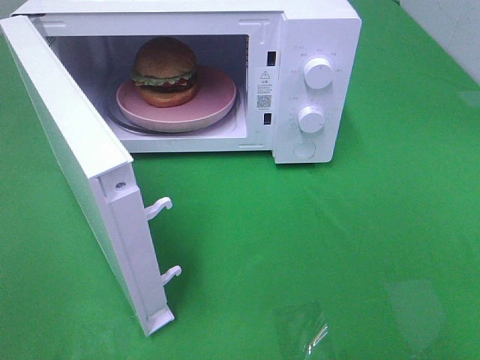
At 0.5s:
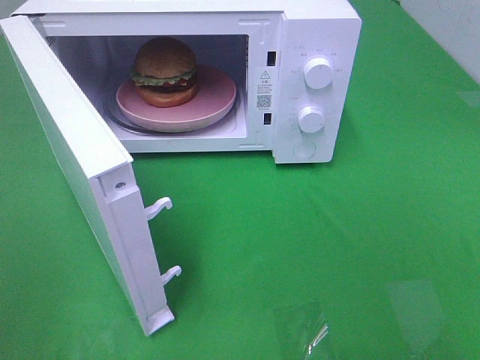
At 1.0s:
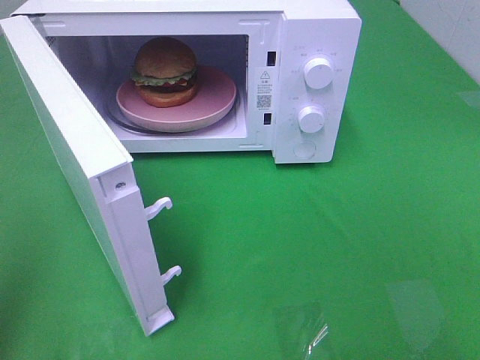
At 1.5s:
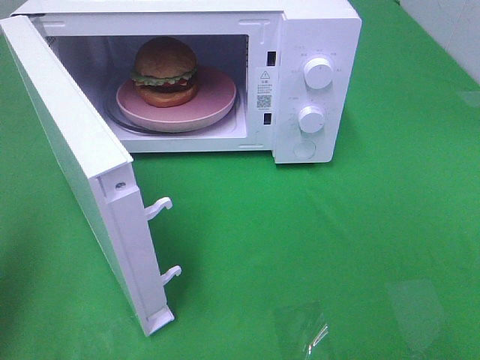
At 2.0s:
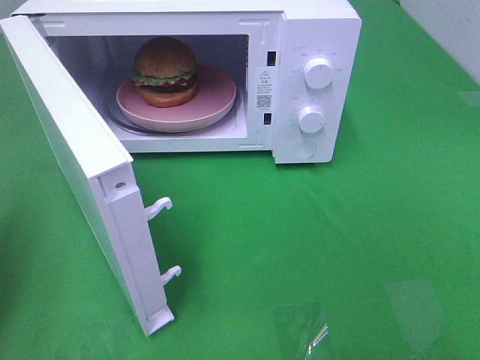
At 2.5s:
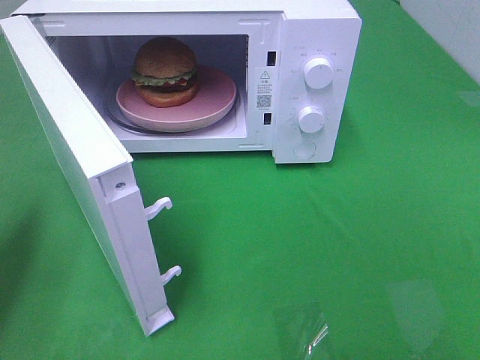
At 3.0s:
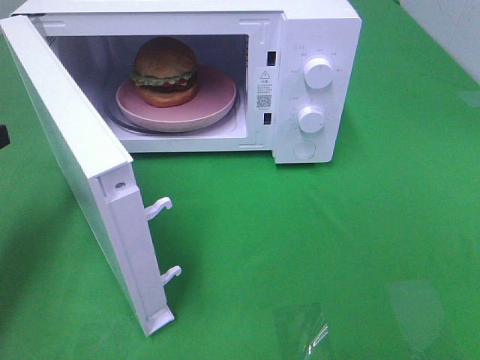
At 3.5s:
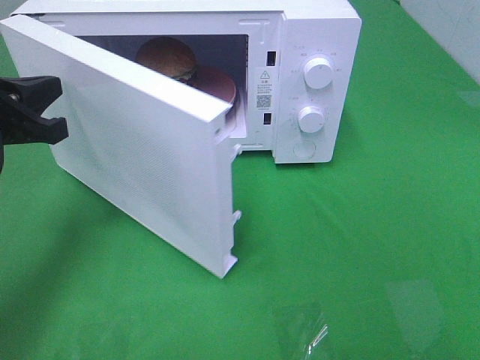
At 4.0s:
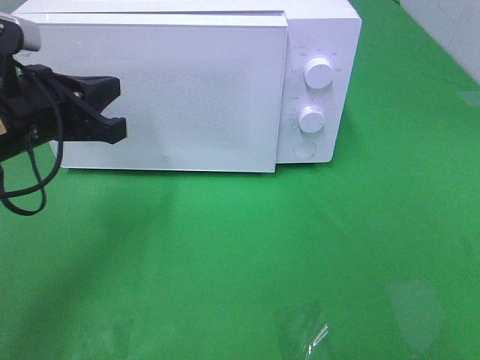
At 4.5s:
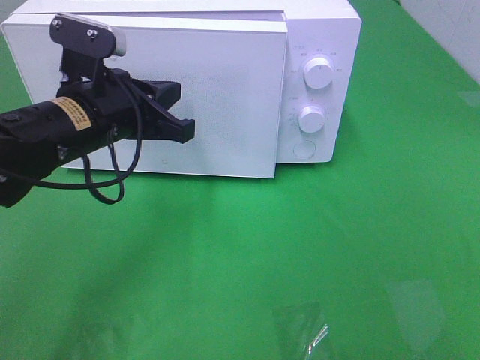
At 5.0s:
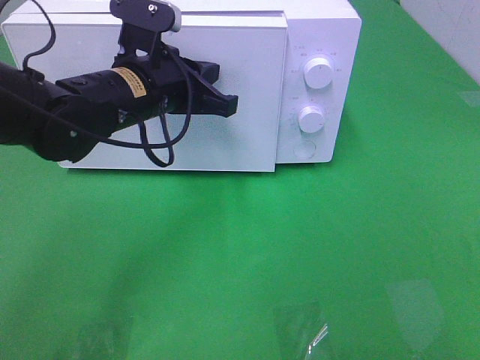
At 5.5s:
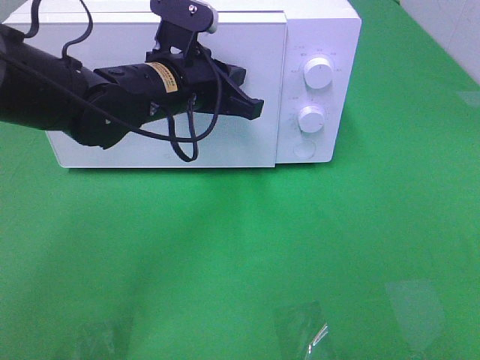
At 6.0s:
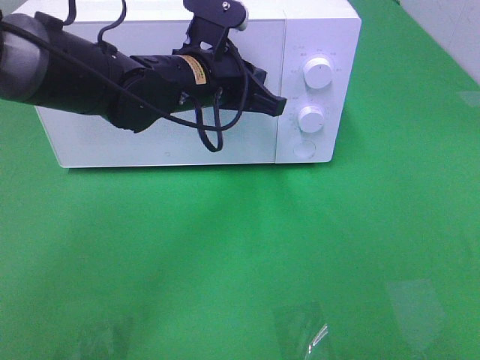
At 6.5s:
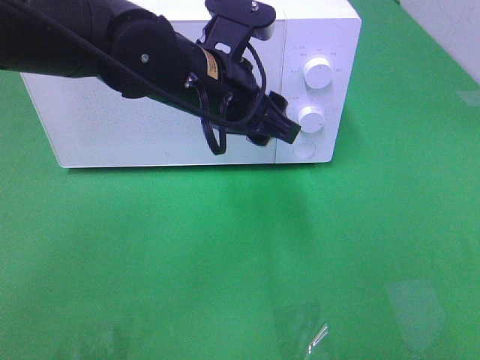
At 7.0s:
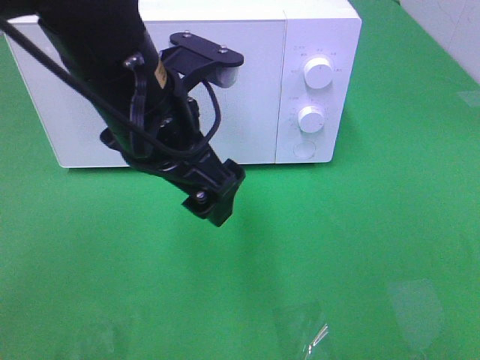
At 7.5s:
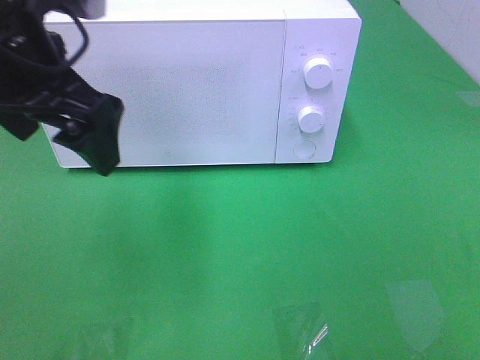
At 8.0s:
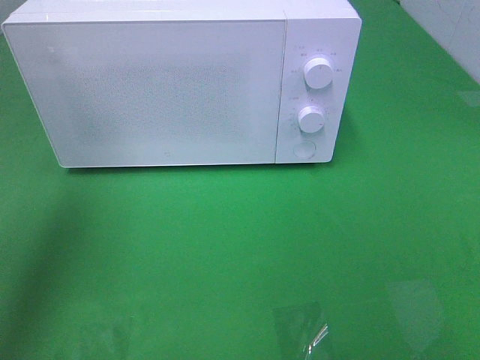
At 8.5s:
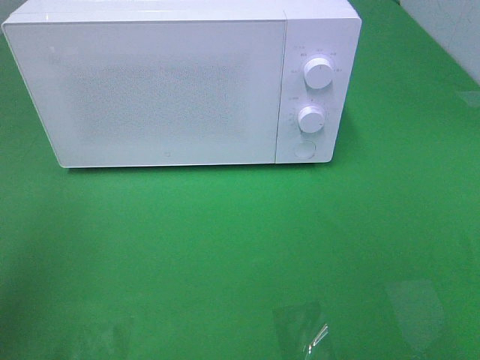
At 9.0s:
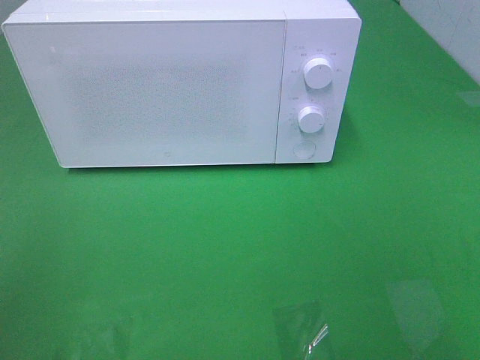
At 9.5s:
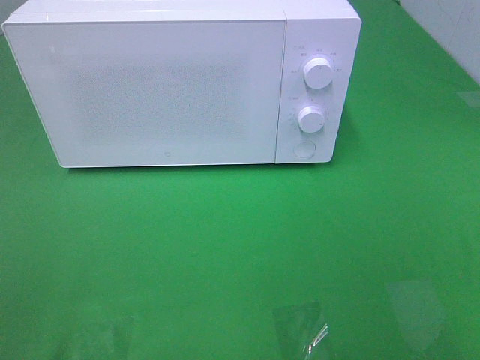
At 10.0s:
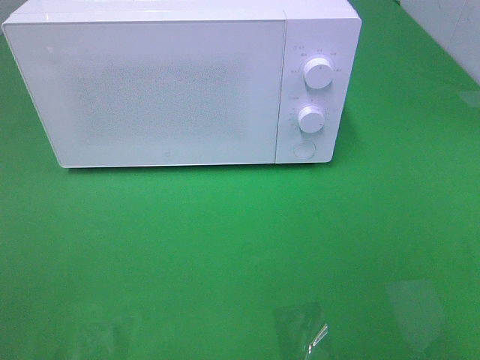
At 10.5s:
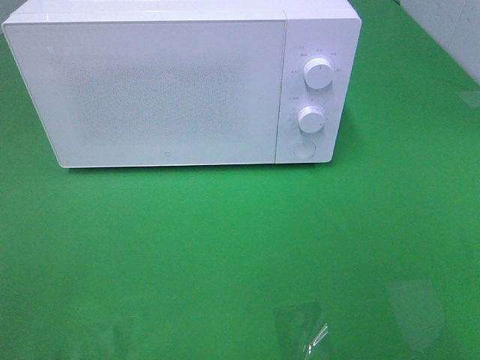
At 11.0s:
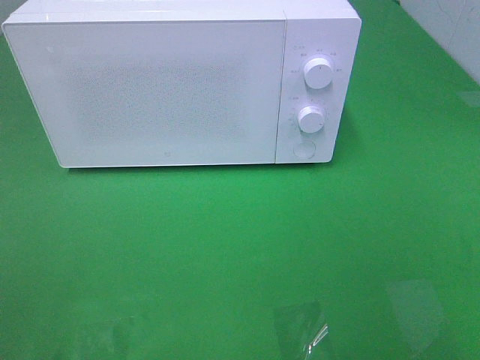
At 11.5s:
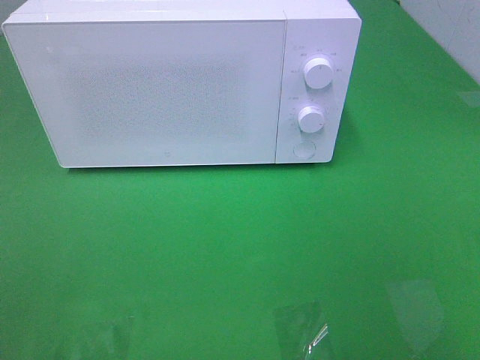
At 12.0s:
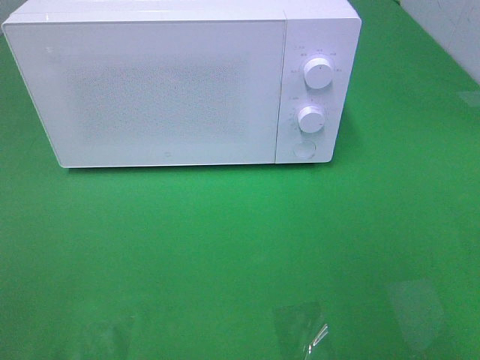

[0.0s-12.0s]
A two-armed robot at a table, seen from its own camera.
Task of the whole recording: Heat the burger.
Step, 0.0s to 6.0s: Left hand: close the microwave door.
0.0s to 2.0s: The left gripper is displaced forward by some 20 cm, and closes.
2.0s to 4.0s: The left gripper shifts approximately 15 cm to the right and forward.
4.0s to 6.0s: The left gripper moves to the right and forward, approximately 20 cm.
6.0s to 8.0s: The left gripper moves to the left, upward and backward, approximately 30 cm, and opens.
8.0s to 10.0s: The left gripper heads backward, covering roughly 25 cm.

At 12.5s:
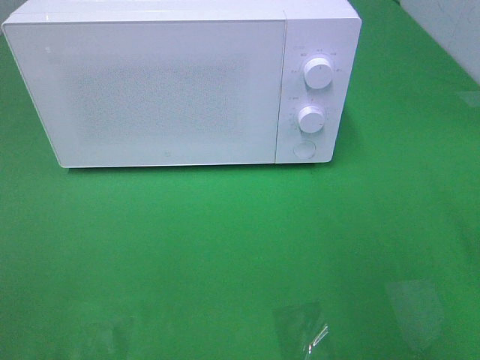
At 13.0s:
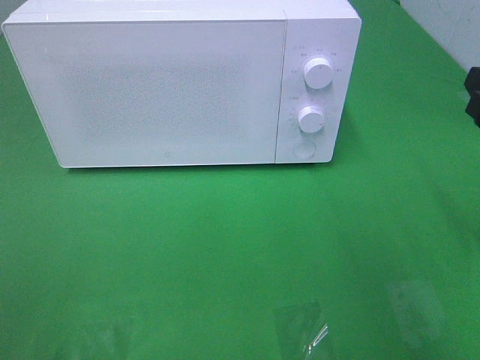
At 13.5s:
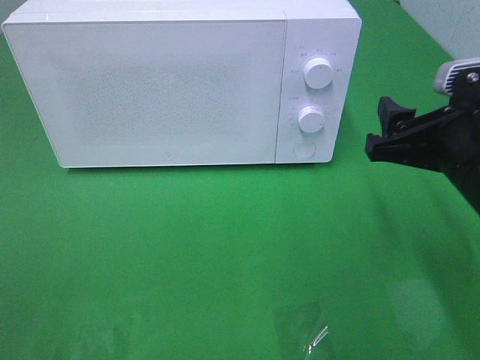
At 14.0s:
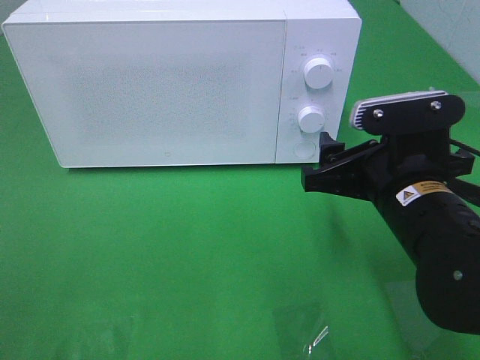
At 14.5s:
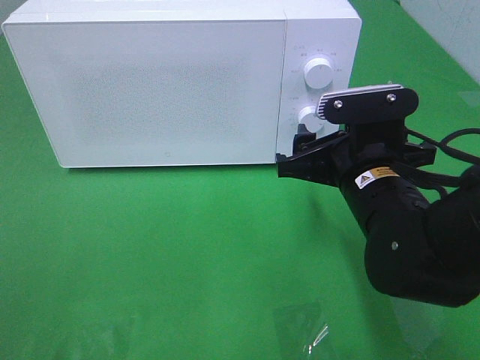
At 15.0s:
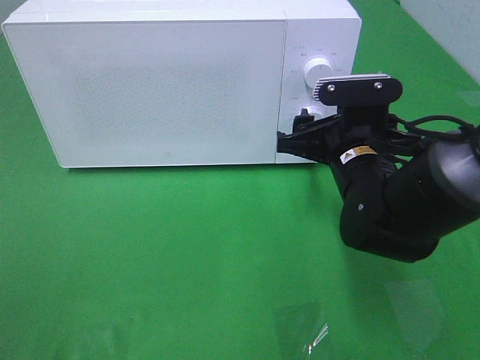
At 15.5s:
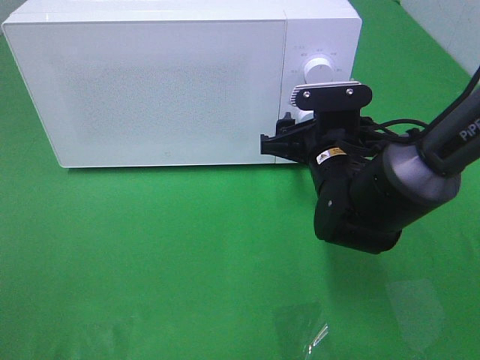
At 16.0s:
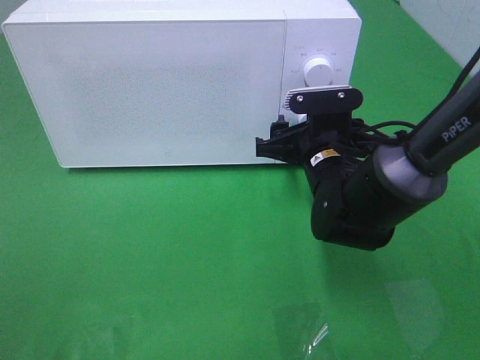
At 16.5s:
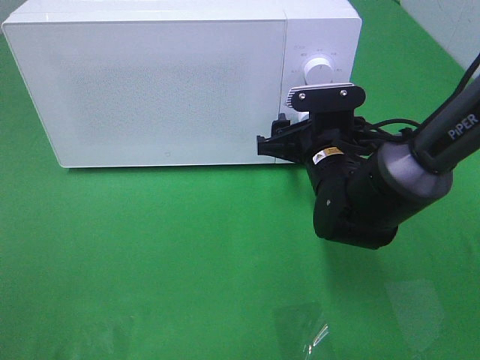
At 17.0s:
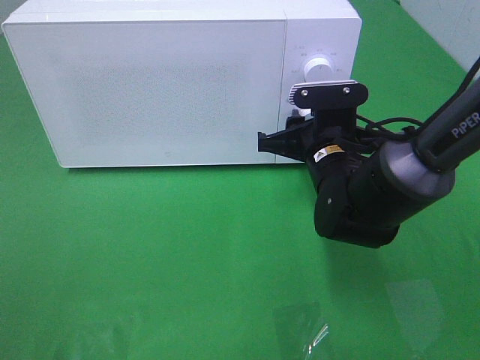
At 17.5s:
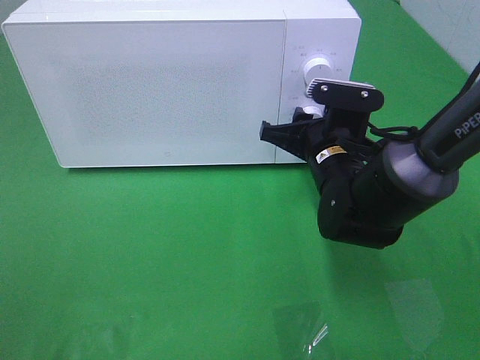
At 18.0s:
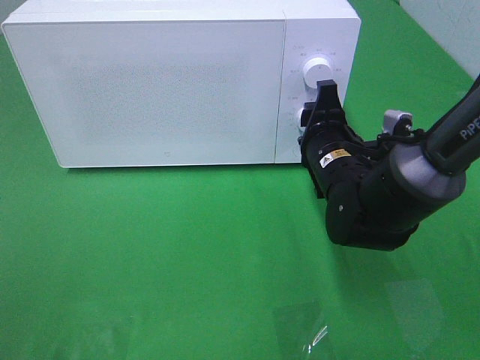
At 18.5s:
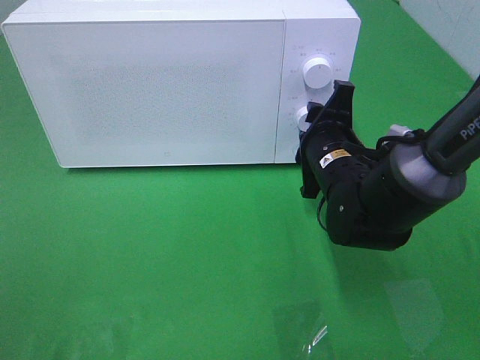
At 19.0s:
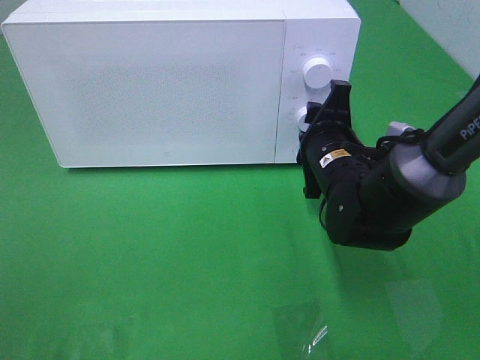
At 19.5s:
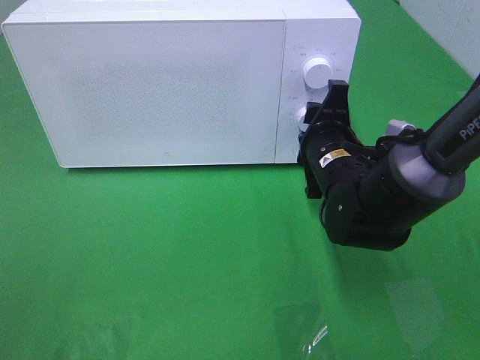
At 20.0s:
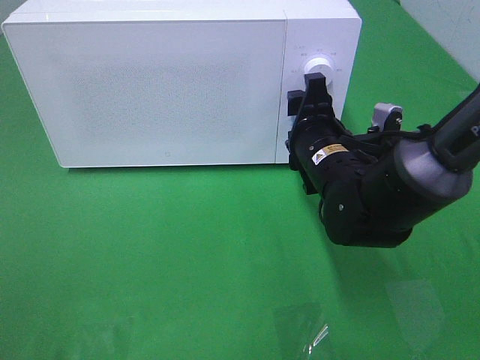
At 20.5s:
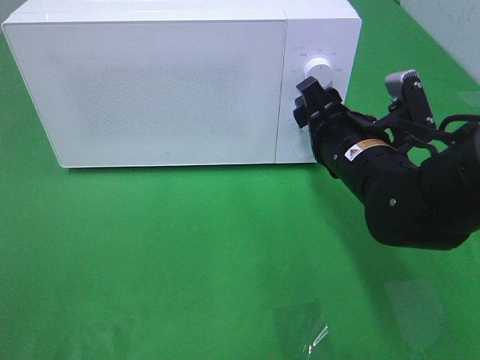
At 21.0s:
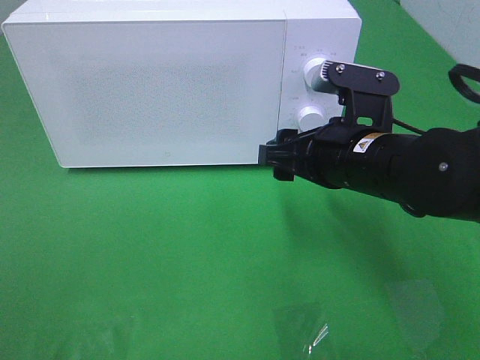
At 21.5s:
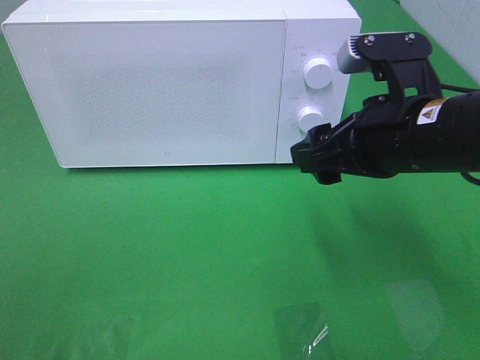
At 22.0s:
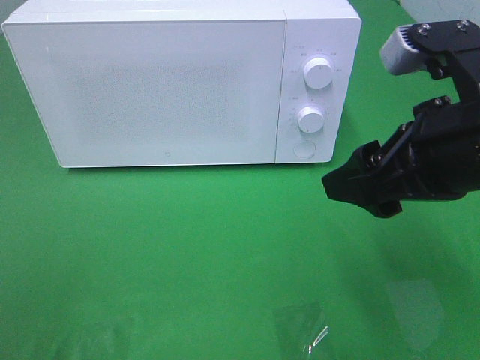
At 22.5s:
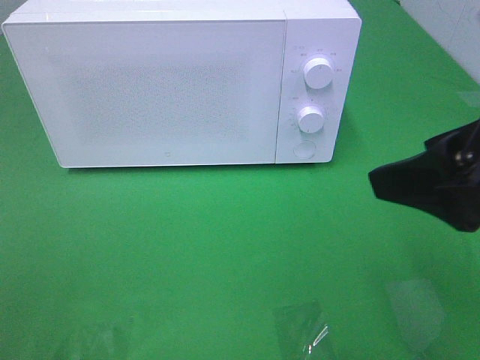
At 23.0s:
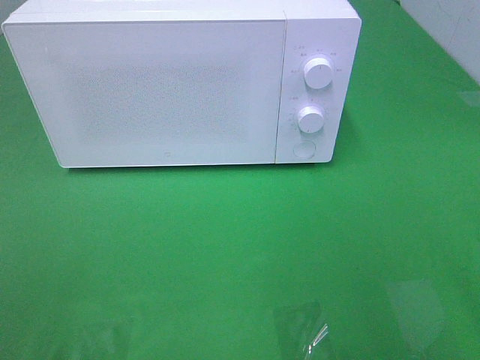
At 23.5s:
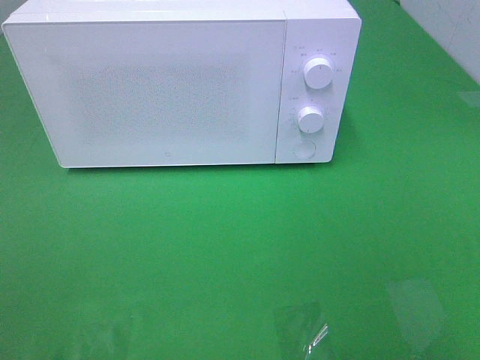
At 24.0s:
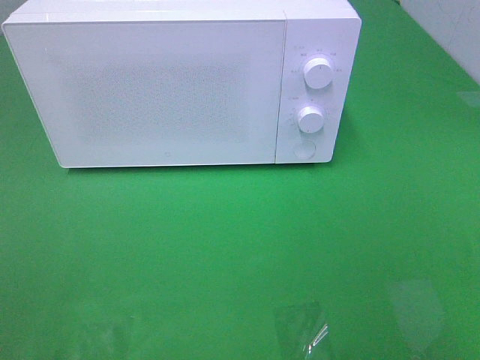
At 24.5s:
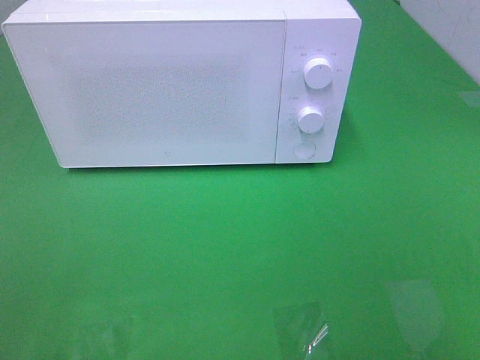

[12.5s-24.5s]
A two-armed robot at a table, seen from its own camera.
Task of the whole recording: Heat the burger.
Step, 12.5s to 19.5s: Right hand: twist timer button.
12.5s to 14.5s: The right gripper heads to the left, downward and forward, covering roughly 20 cm.
14.5s to 16.5s: The right gripper goes about 10 cm forward.
16.5s to 18.5s: The right gripper closes.
18.5s to 20.5s: The right gripper changes place by approximately 5 cm.
20.5s to 22.5s: The right gripper shifts about 20 cm upward, backward and to the right.
22.5s to 24.5s: The right gripper moves backward and to the right, approximately 15 cm.

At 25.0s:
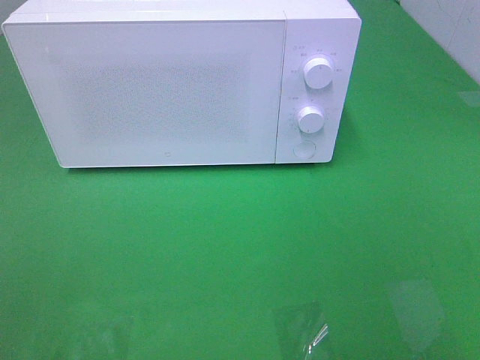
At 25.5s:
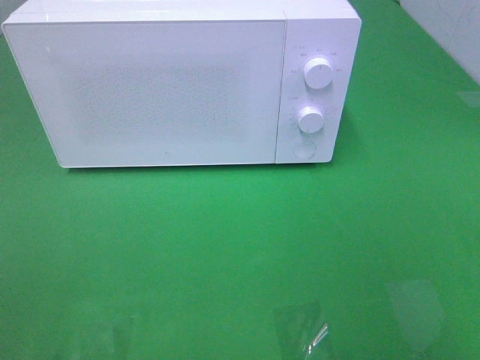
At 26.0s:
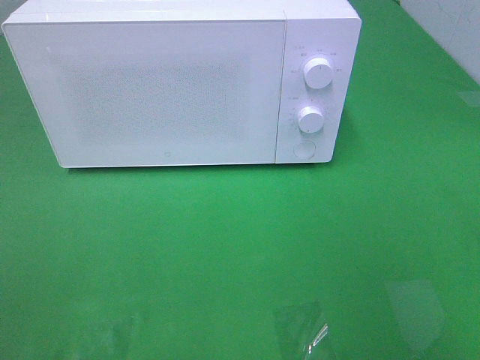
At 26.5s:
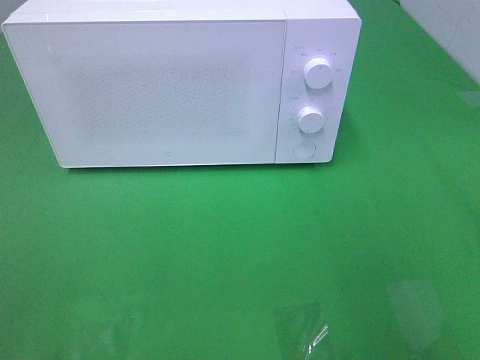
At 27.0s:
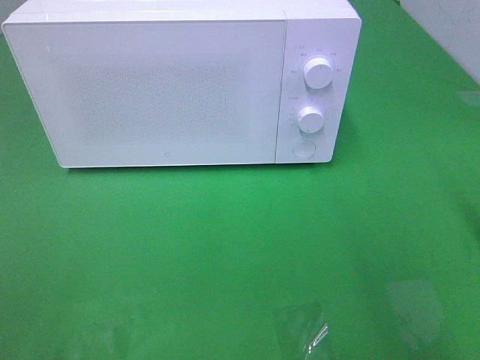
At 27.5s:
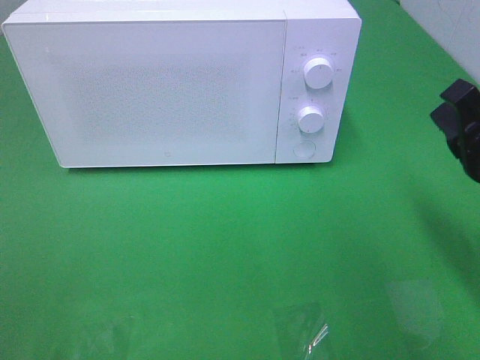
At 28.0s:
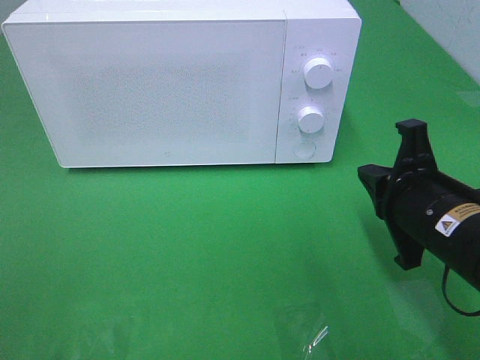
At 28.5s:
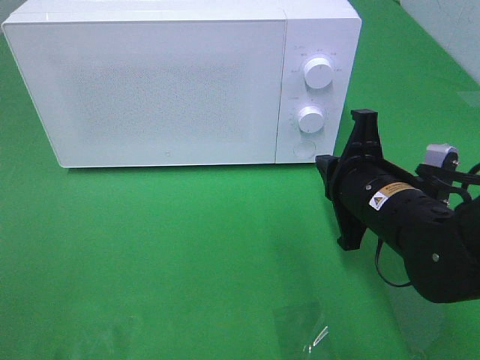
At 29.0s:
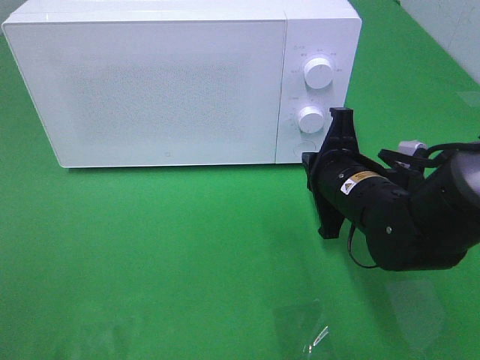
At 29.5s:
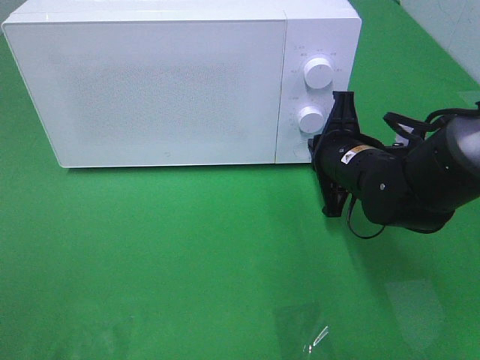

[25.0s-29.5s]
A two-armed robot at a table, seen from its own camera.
Task of the whole recording: Heat the burger.
27.0s to 29.5s: The right gripper heads to the left, forward and downward, covering some 25 cm, and closes its fingers.
